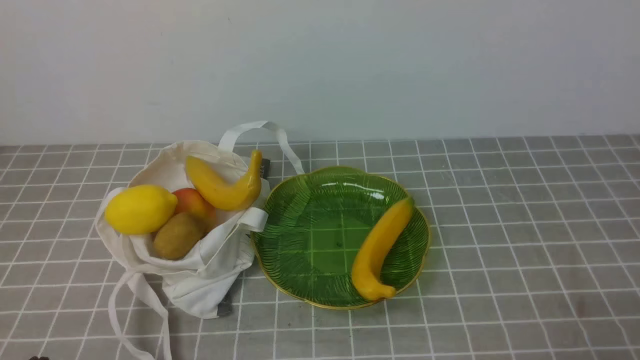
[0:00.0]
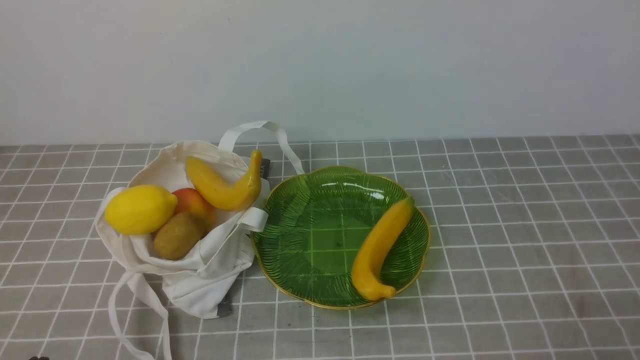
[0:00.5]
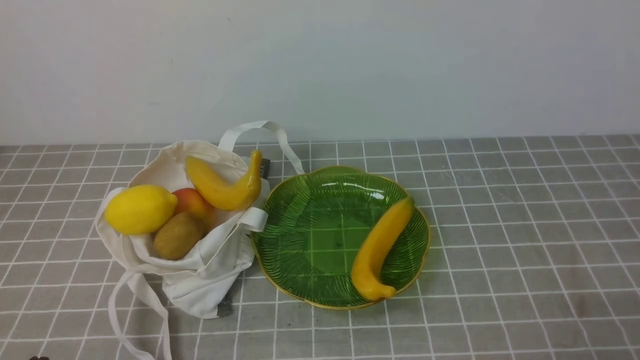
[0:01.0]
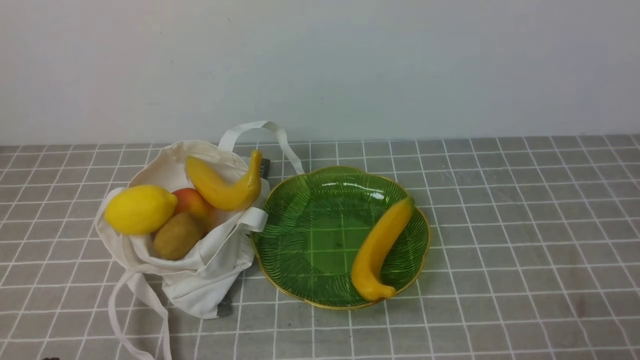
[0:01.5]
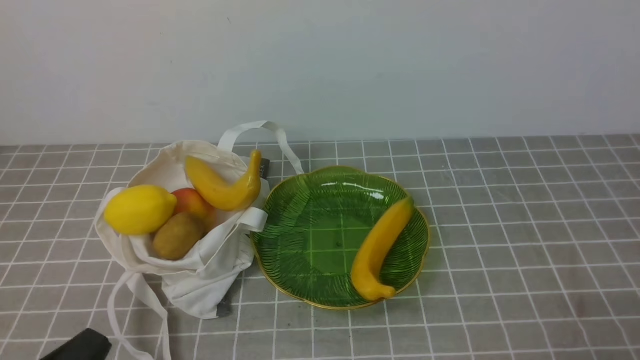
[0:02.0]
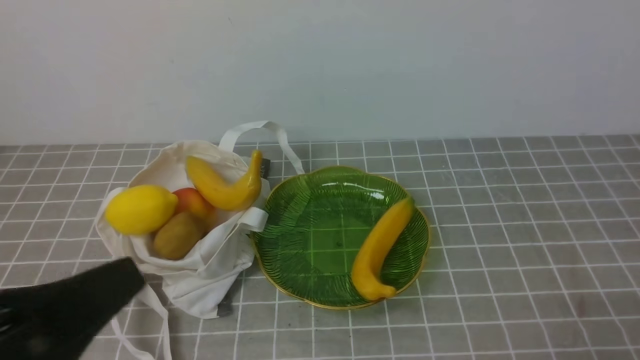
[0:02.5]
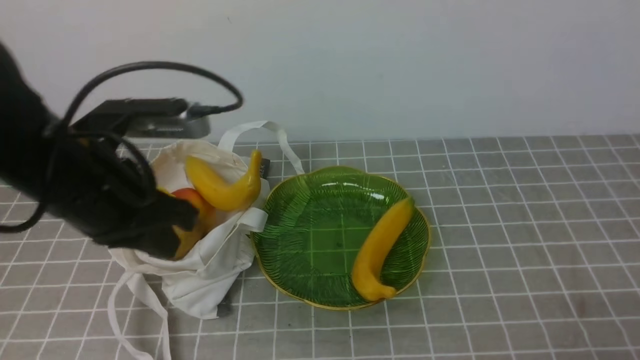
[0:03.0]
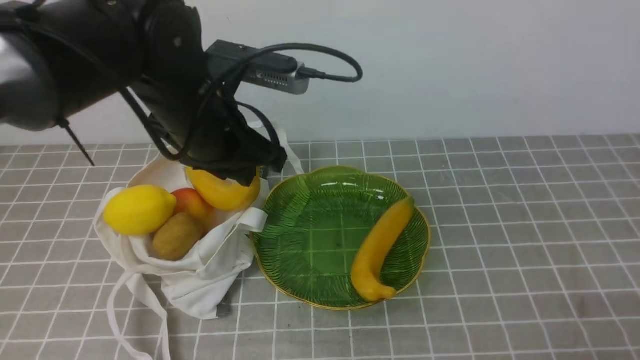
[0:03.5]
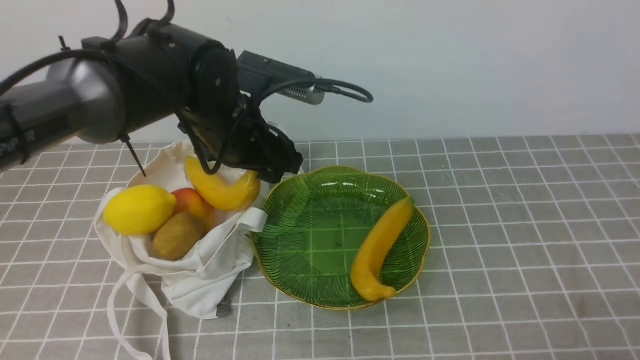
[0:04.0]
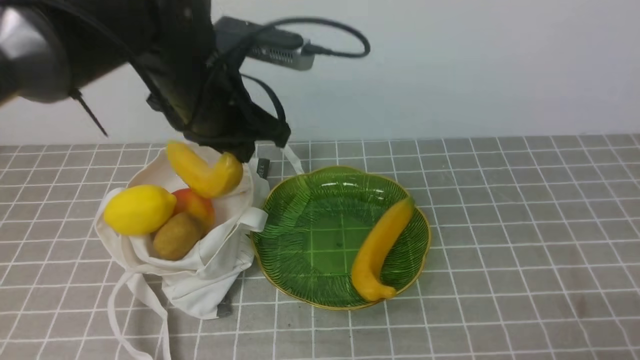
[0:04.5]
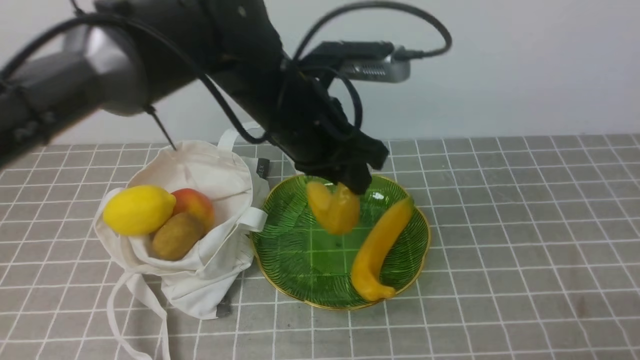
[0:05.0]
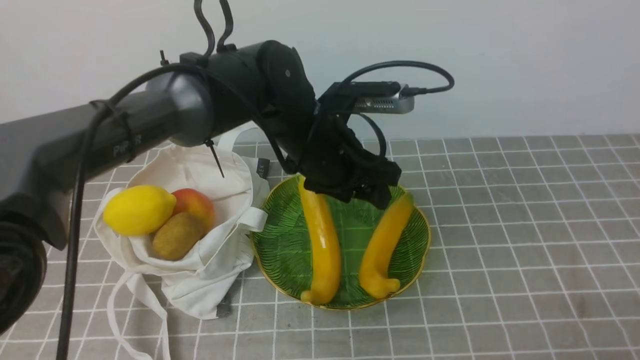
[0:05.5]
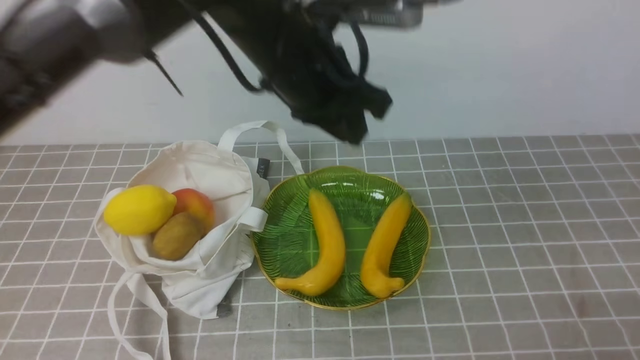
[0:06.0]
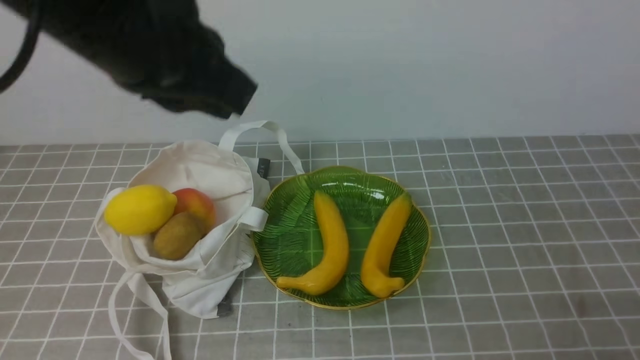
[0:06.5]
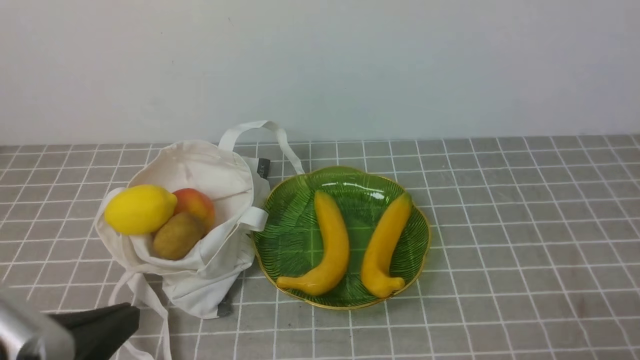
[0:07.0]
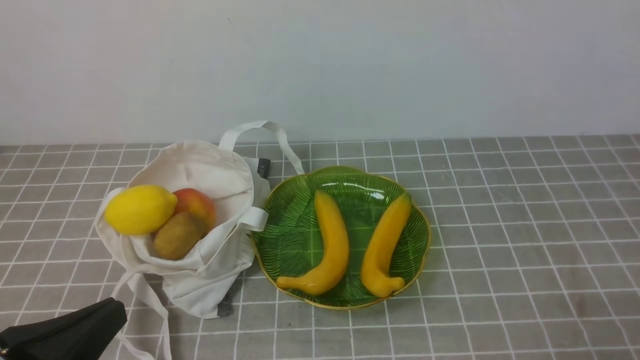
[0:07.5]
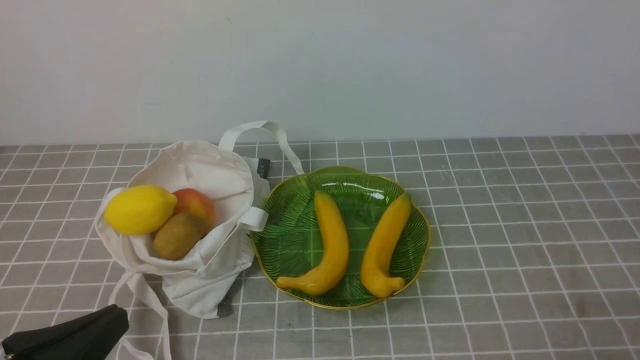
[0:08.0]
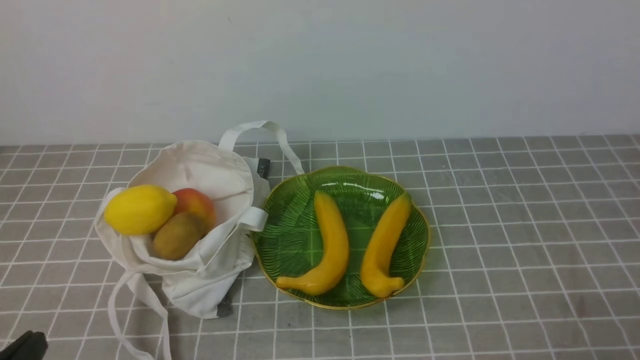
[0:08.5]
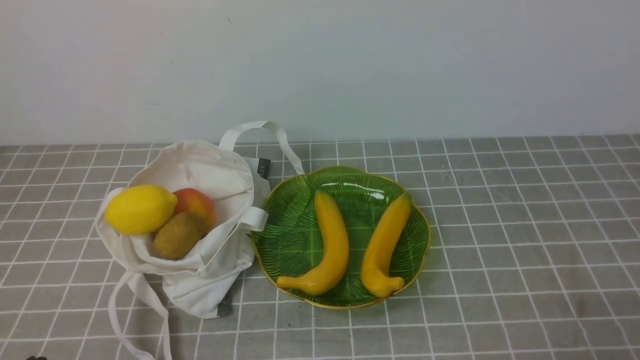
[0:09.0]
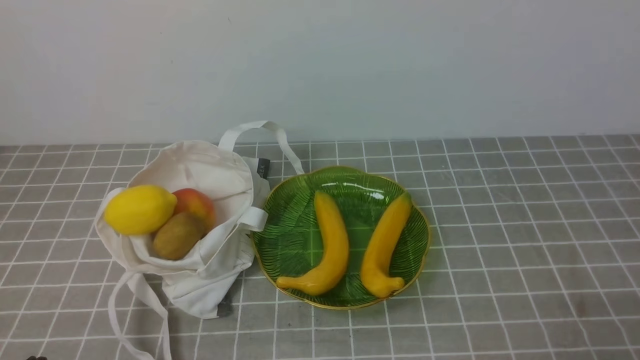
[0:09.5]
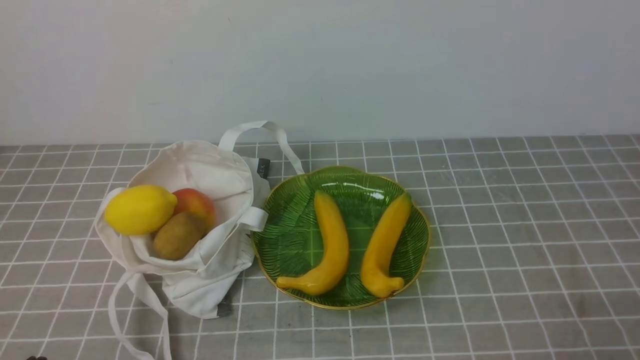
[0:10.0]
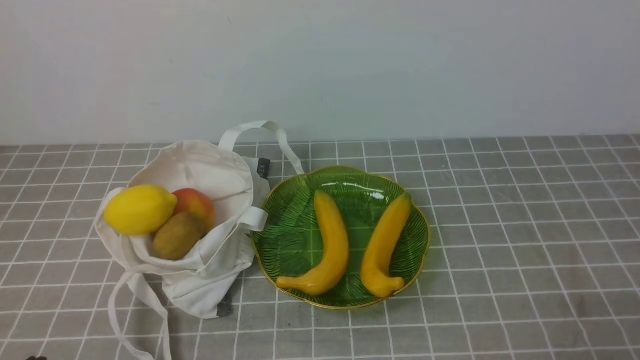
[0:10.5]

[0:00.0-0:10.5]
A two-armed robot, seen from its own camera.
Step, 0:00.0 to 0:04.0: use the left arm to grab a banana from the bag.
Step, 0:04.5 to 0:05.0: use the left arm to put the banana into the empty plate on the right.
0:02.0 to 0:04.0: The left gripper heads forward and to the right, covering some 35 cm, and opens.
0:04.0 to 0:06.5: The left gripper moves up and down over roughly 20 cm, changing direction 2 times, and closes.
0:06.5 to 0:08.5: The left gripper is displaced downward, backward and to the left by some 35 cm.

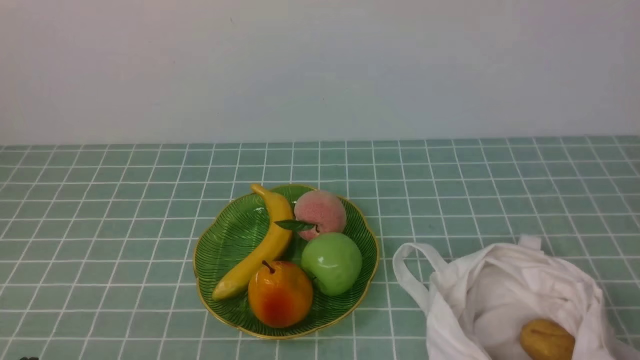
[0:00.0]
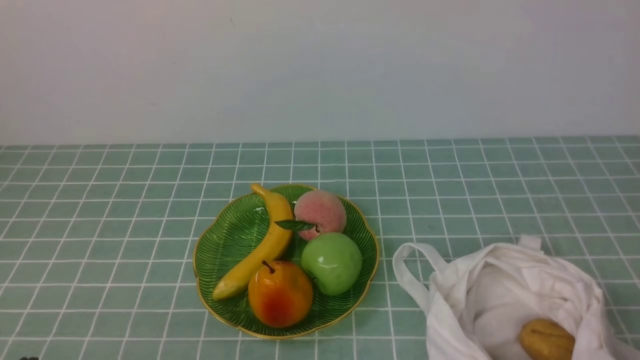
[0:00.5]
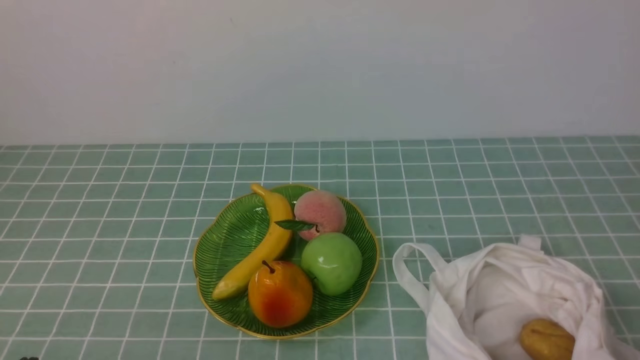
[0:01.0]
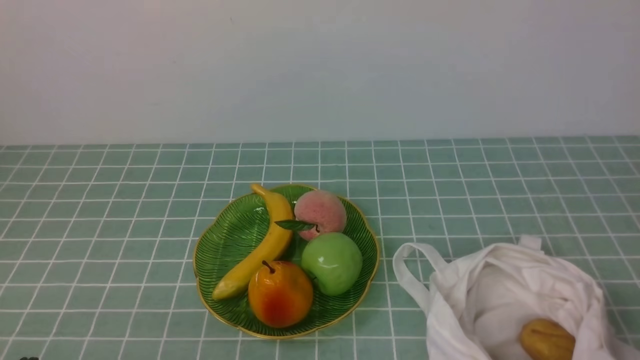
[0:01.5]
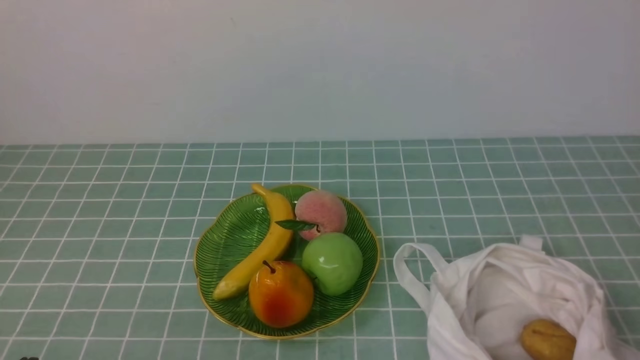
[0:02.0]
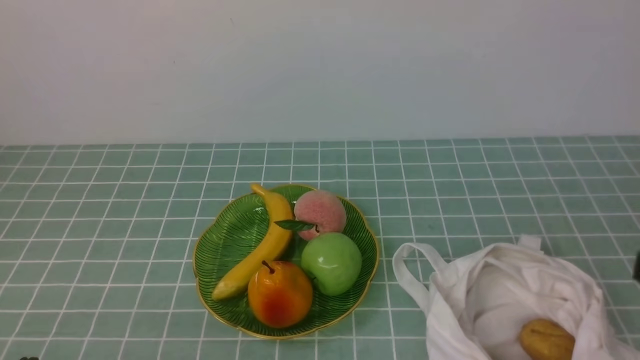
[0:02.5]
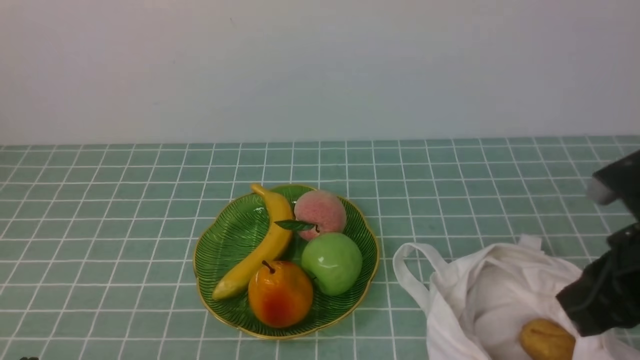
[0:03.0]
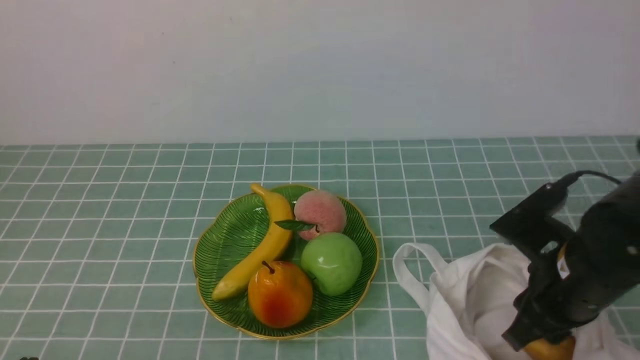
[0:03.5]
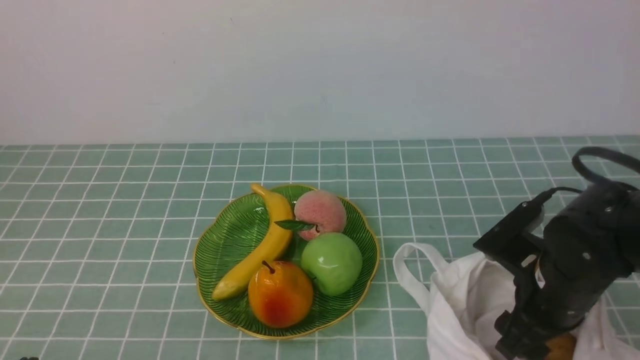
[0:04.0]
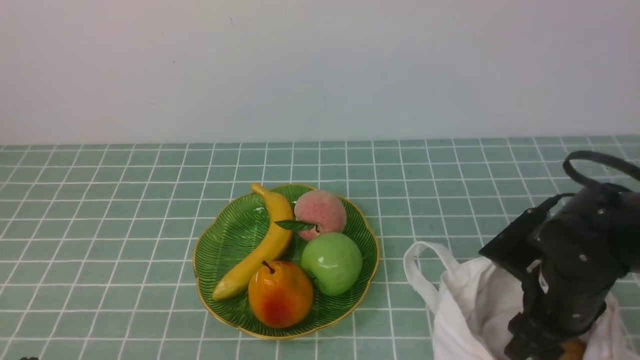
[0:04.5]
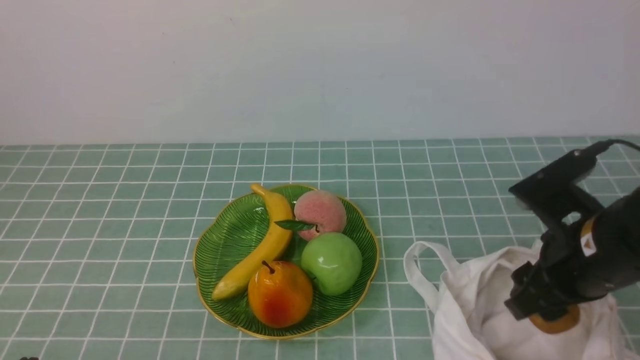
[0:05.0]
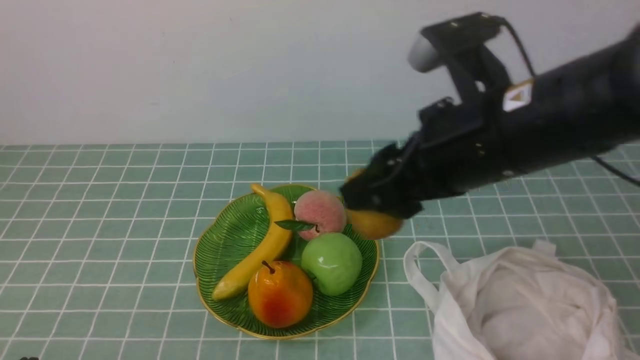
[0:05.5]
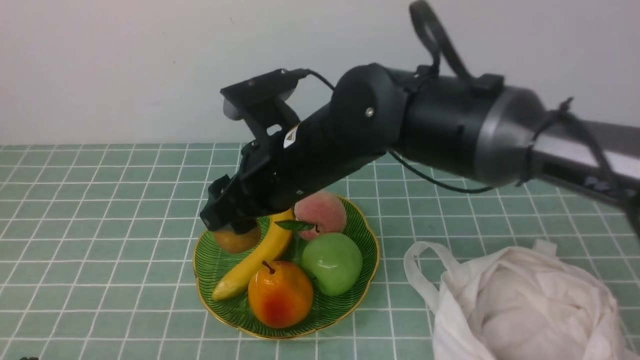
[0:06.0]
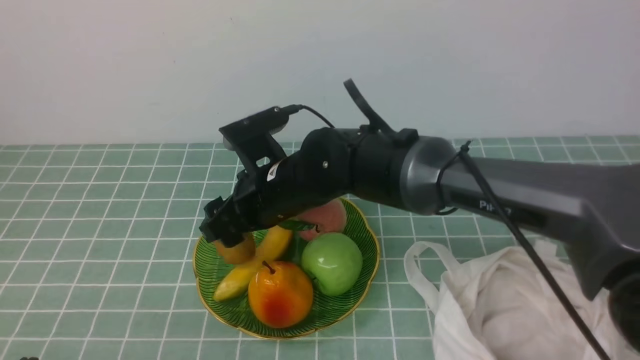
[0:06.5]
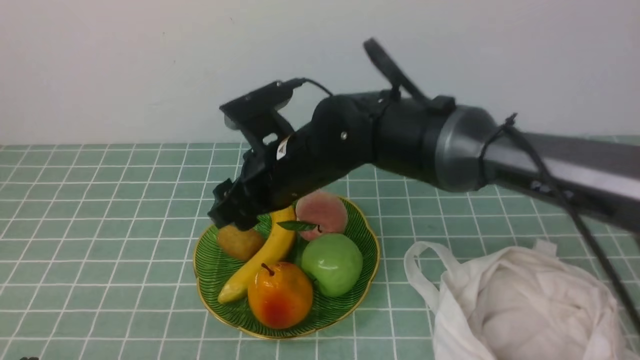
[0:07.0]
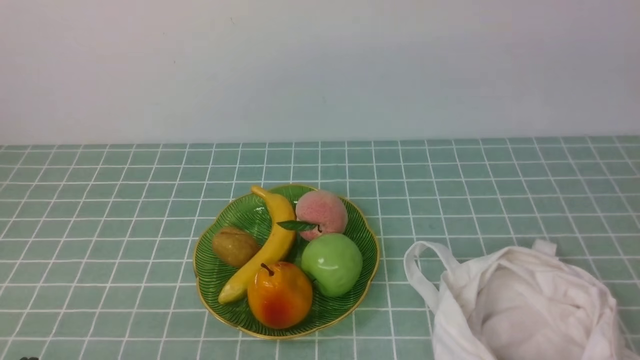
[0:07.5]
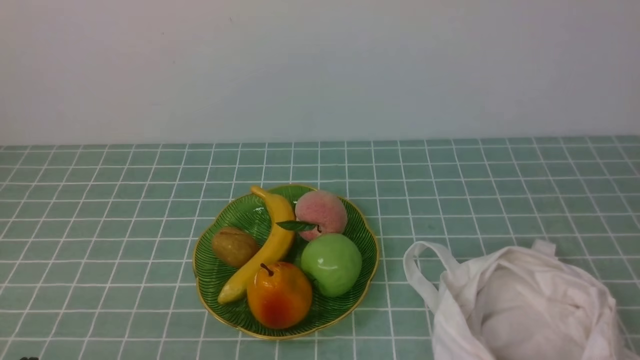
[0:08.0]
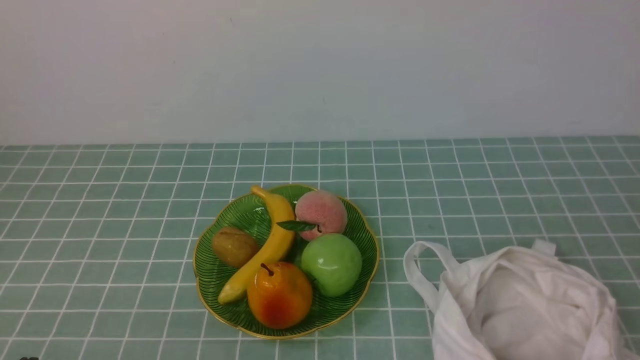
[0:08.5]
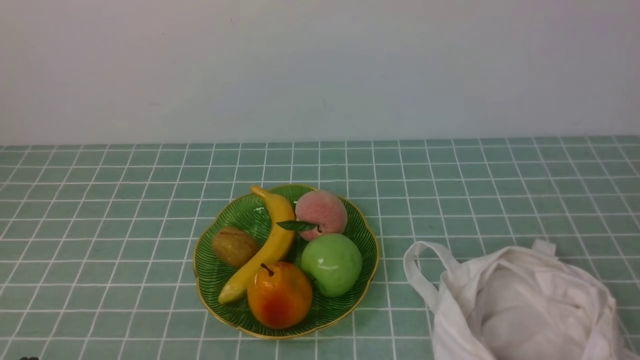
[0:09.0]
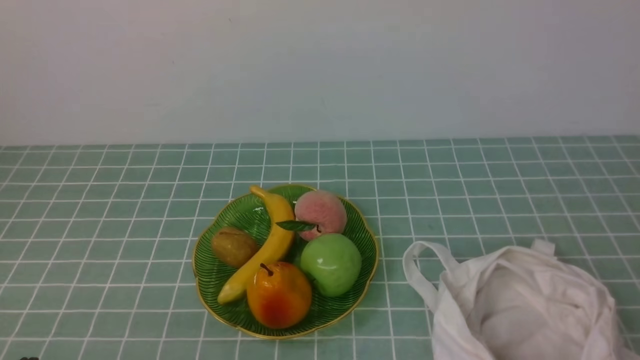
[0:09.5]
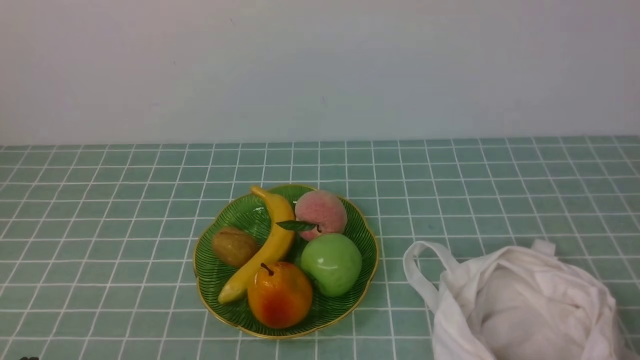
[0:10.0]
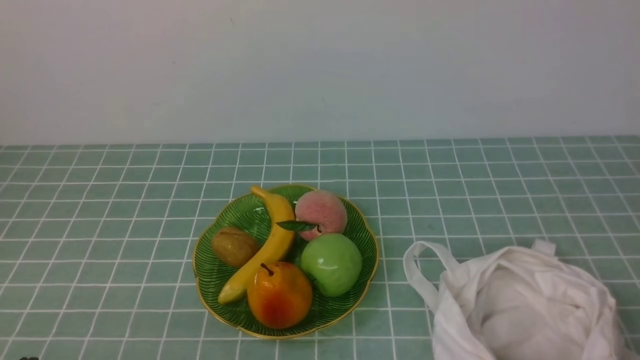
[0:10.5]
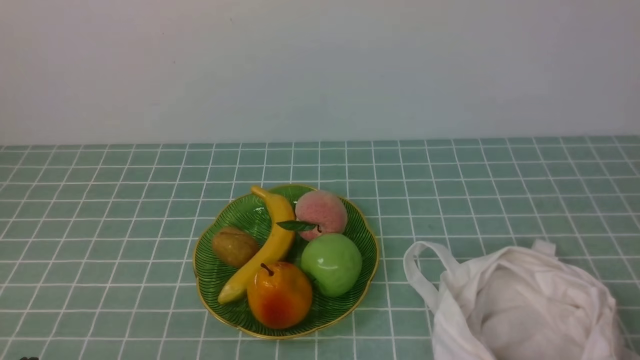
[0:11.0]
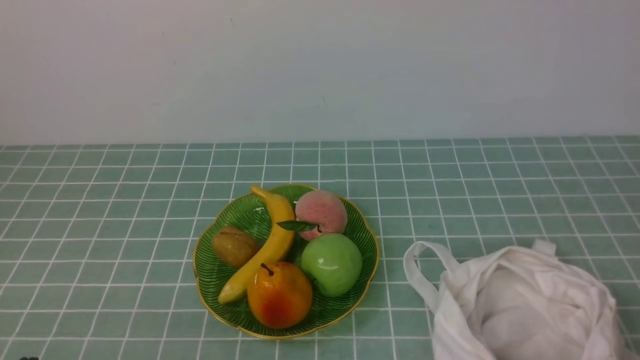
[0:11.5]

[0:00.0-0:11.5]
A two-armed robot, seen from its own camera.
Step, 0:00.0 to 0:04.5: use the right arm to grab a kiwi from the bag.
Step, 0:05.0 to 0:06.5: use the right arm to put the kiwi into the empty plate on the left.
0:02.0 to 0:04.0: The right gripper moves forward and to the left, roughly 20 cm, and opens.
0:04.0 to 0:06.0: The right gripper shifts roughly 25 cm to the left and upward.
0:06.0 to 0:07.5: The right gripper goes roughly 30 cm upward, to the right and backward, and closes its fingers.
0:07.5 to 0:09.5: The right gripper is displaced downward, backward and to the right by some 30 cm.
